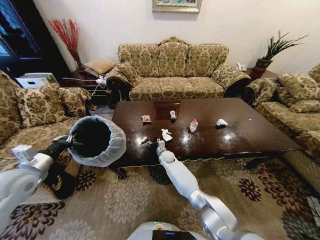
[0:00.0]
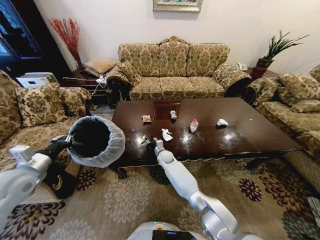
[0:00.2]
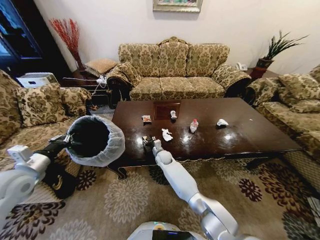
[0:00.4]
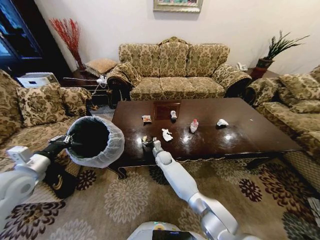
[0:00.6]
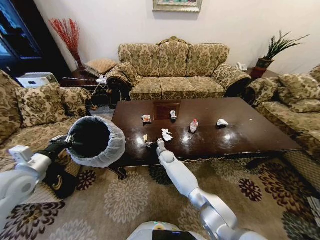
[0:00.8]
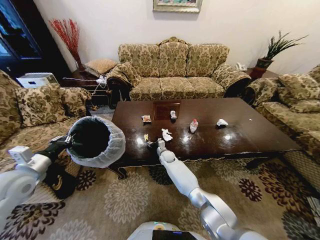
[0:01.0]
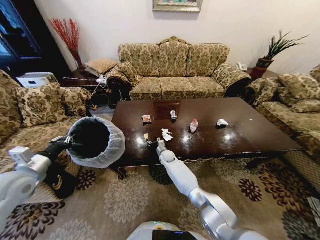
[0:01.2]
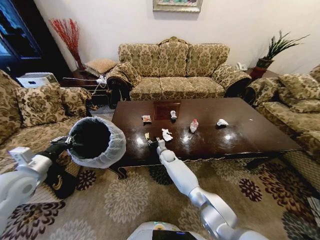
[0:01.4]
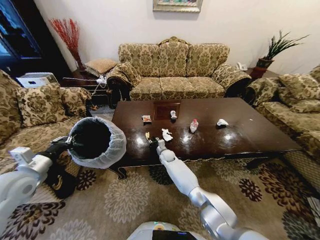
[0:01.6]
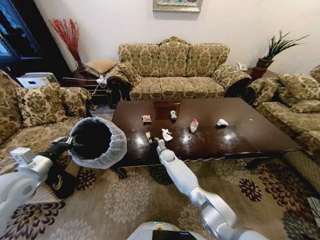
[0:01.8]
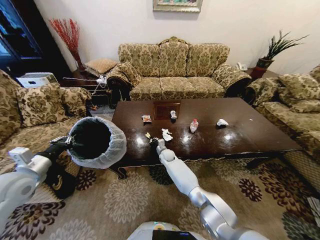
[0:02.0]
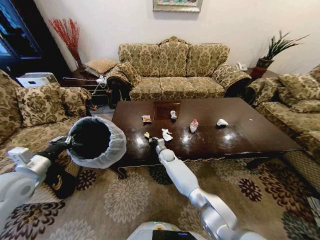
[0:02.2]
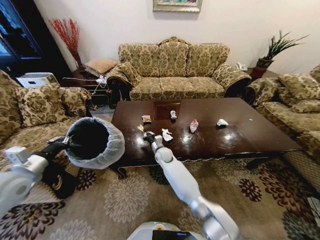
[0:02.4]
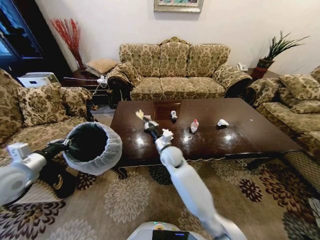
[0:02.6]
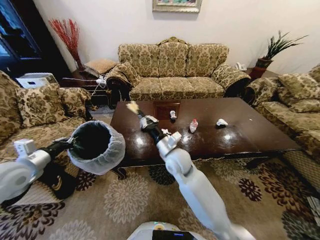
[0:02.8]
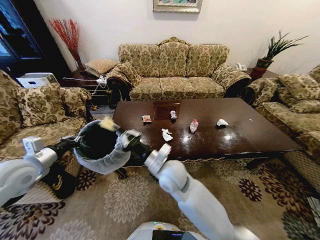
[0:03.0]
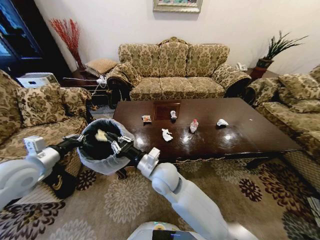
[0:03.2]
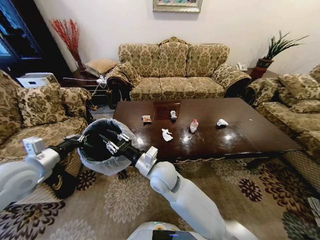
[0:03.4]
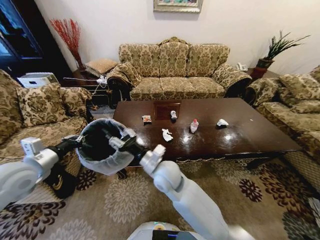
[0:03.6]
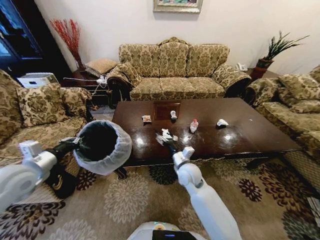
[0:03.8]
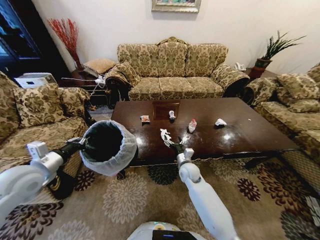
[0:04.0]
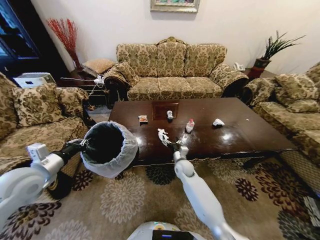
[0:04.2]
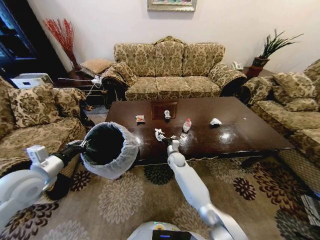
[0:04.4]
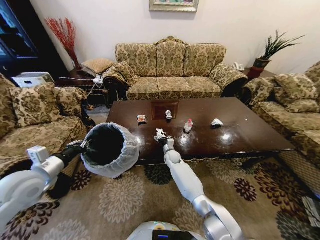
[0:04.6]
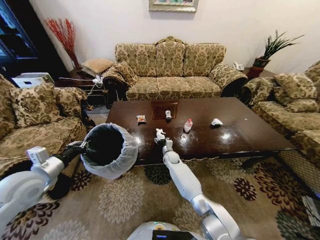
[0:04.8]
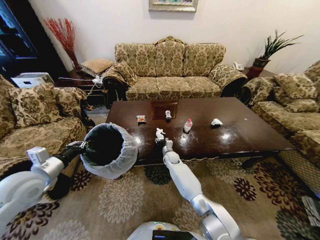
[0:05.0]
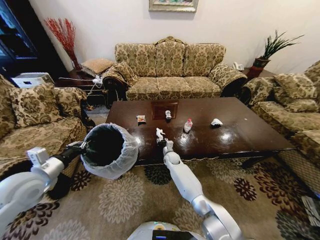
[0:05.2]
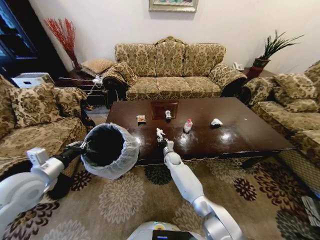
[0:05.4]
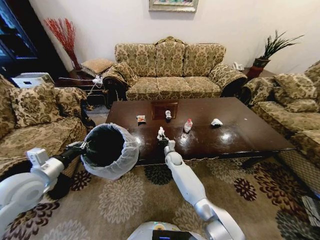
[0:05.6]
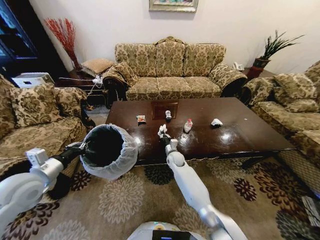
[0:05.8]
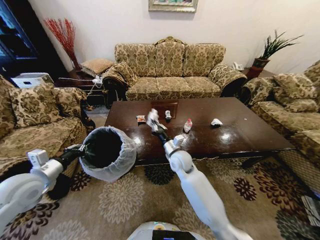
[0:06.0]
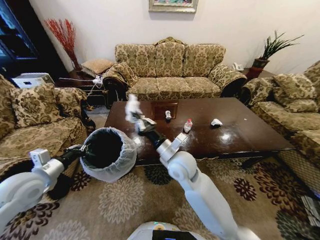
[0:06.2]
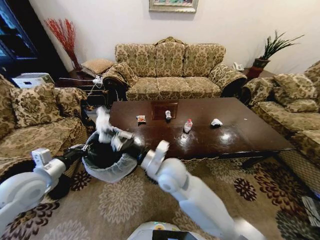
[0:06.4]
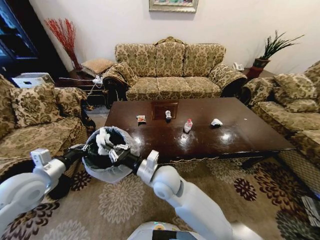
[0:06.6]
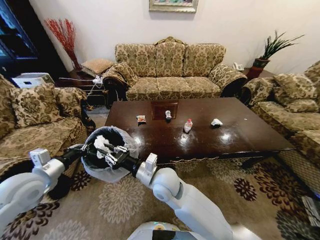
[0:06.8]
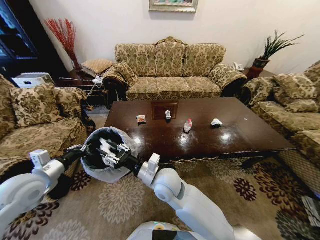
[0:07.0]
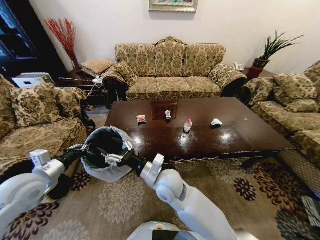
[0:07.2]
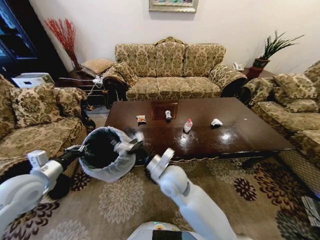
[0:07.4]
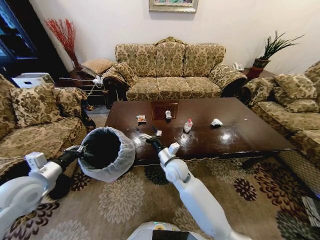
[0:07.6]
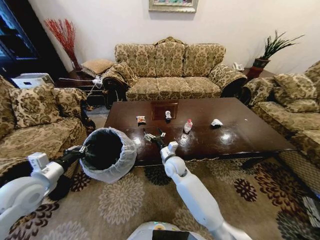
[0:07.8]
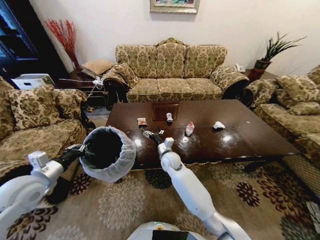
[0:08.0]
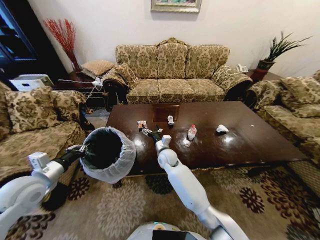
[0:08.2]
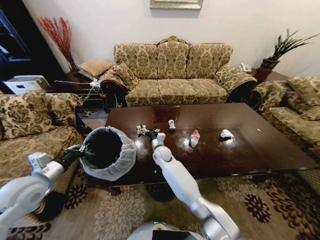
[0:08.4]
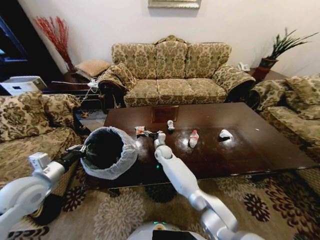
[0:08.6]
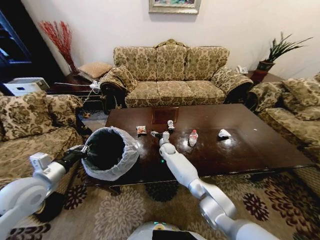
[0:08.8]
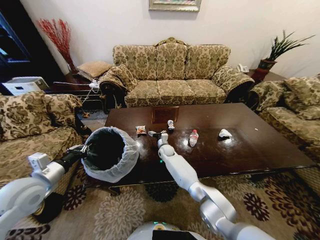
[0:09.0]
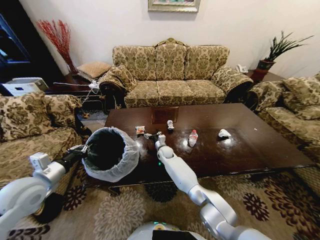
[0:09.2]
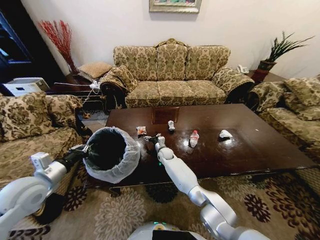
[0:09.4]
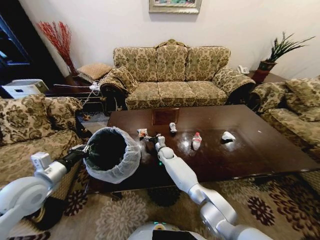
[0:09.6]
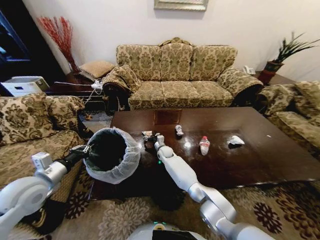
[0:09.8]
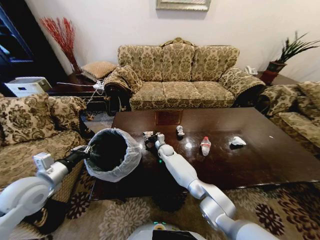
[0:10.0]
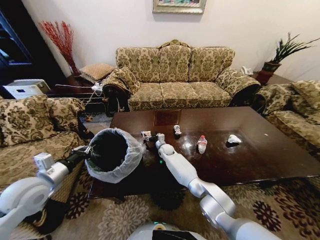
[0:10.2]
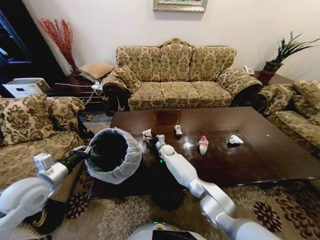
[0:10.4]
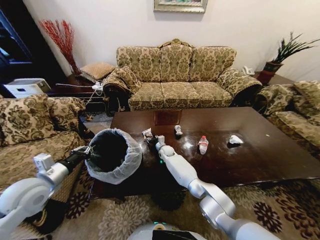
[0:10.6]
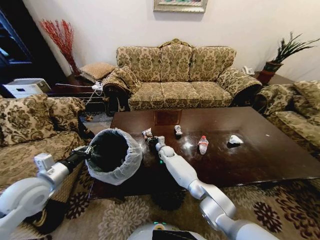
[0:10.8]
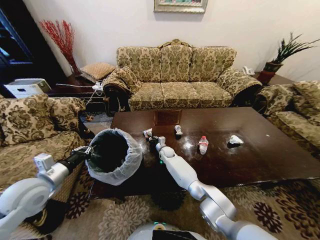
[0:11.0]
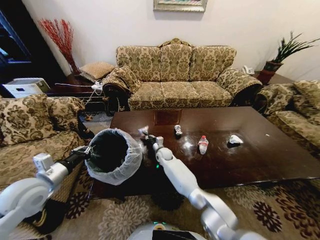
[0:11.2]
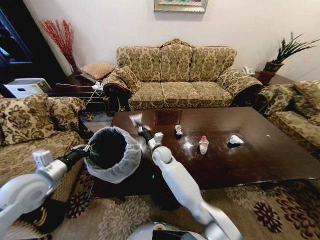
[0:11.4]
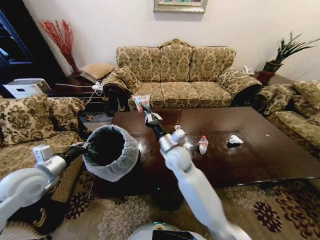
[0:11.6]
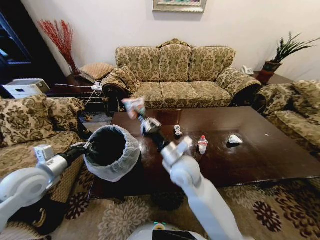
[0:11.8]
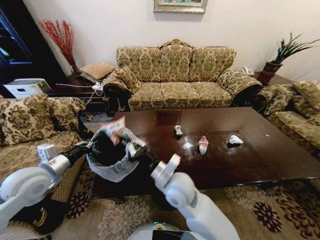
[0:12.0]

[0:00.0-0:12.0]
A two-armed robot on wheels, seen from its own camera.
Task of the whole recording: Move to the front of the table and place the trash on the table into the trash bin.
0:00.0 to 0:01.6: There are only small adjustments of the grippers.
0:01.6 to 0:03.0: The right gripper is displaced upward and backward by some 30 cm, and closes its fingers.
0:03.0 to 0:04.4: The right gripper is displaced downward and forward by about 30 cm, and opens.
0:04.4 to 0:06.0: The right gripper shifts some 15 cm upward and backward, and closes up.
0:06.0 to 0:07.6: The right gripper moves some 10 cm backward and comes back, and opens its fingers.
0:07.6 to 0:09.0: The right gripper heads forward and downward, covering about 20 cm.
0:10.4 to 0:12.0: The right gripper travels backward and upward by some 35 cm, and closes.

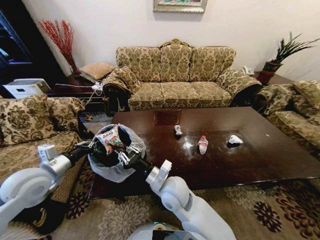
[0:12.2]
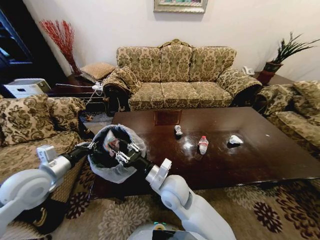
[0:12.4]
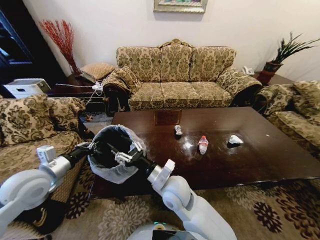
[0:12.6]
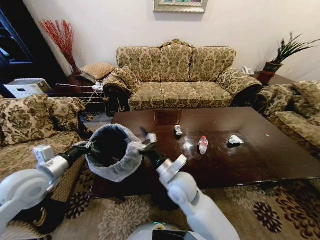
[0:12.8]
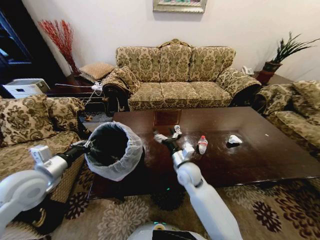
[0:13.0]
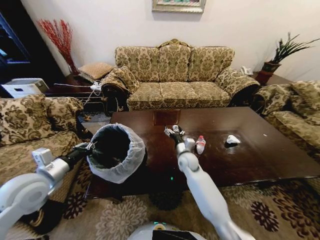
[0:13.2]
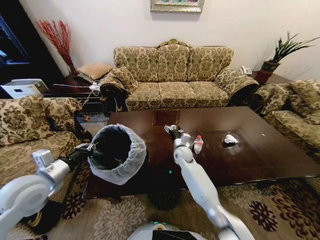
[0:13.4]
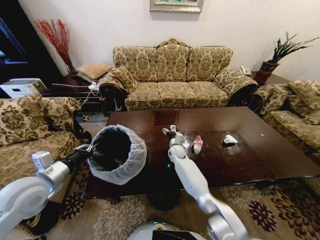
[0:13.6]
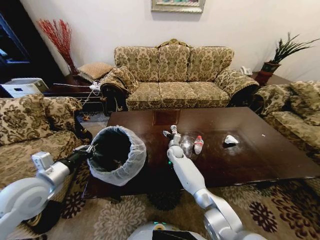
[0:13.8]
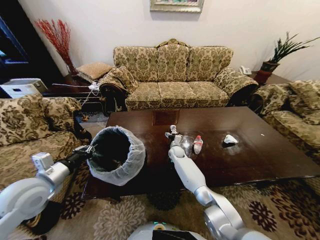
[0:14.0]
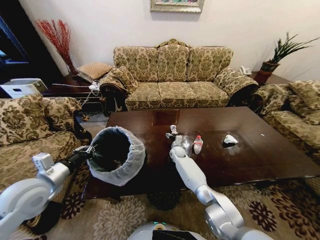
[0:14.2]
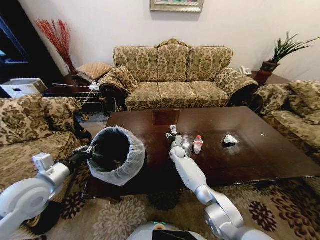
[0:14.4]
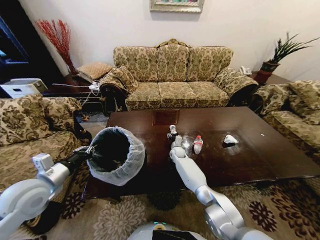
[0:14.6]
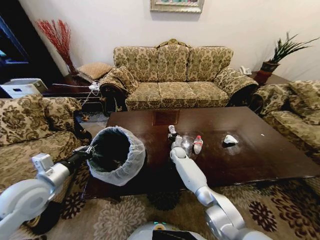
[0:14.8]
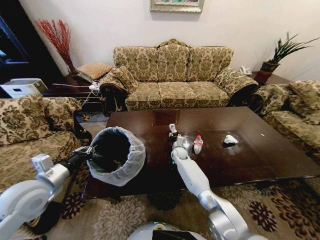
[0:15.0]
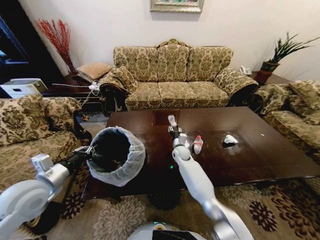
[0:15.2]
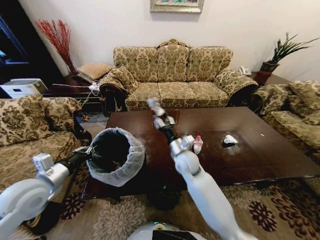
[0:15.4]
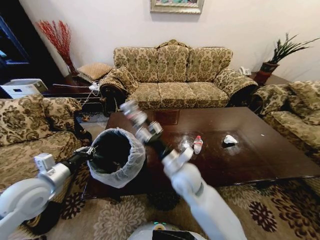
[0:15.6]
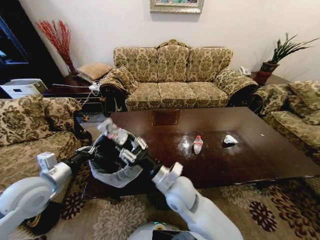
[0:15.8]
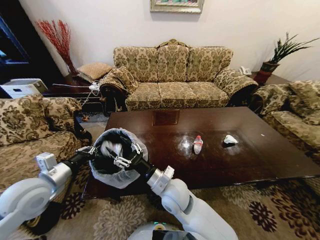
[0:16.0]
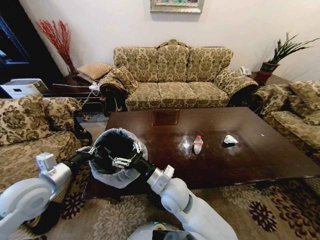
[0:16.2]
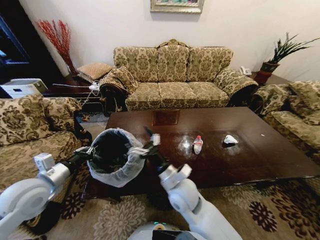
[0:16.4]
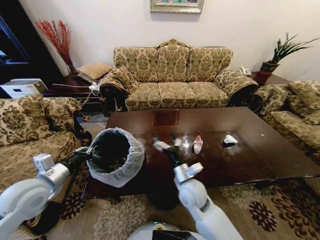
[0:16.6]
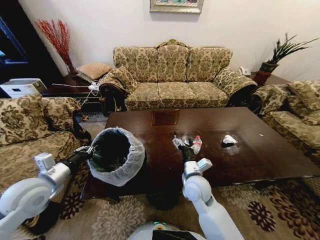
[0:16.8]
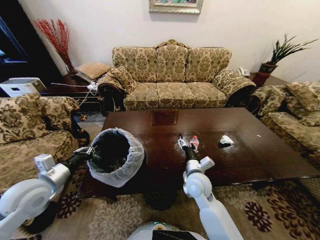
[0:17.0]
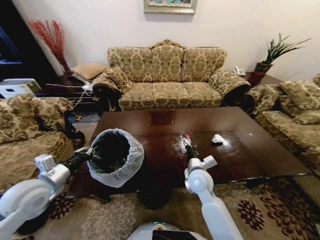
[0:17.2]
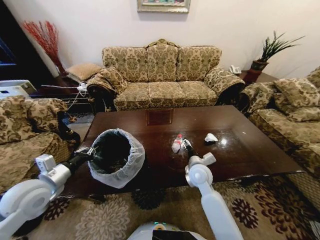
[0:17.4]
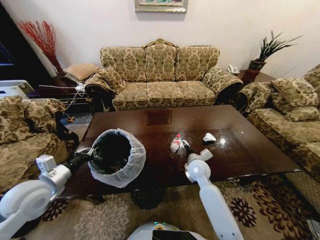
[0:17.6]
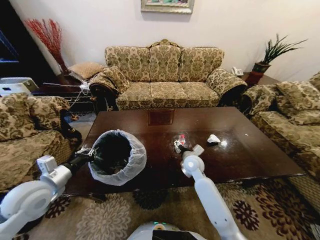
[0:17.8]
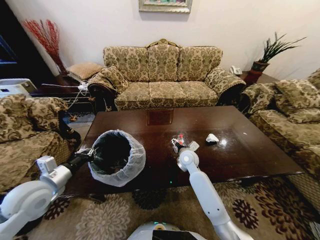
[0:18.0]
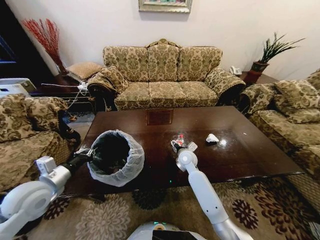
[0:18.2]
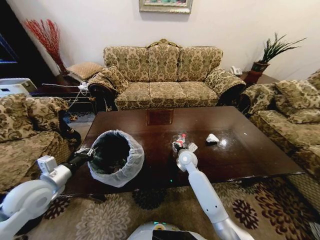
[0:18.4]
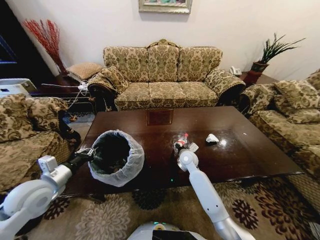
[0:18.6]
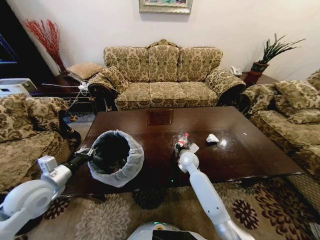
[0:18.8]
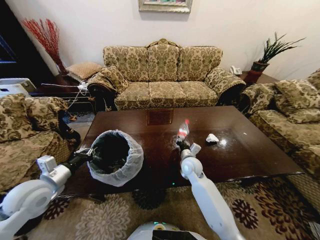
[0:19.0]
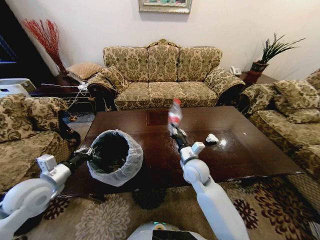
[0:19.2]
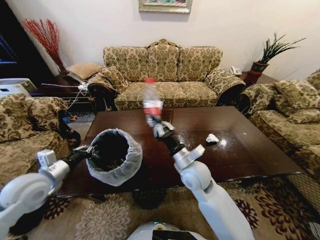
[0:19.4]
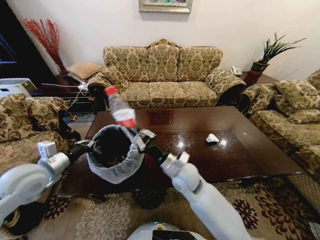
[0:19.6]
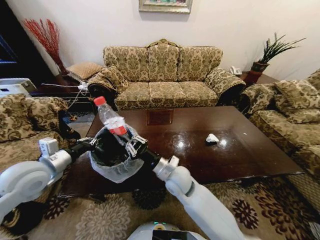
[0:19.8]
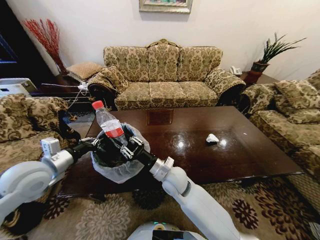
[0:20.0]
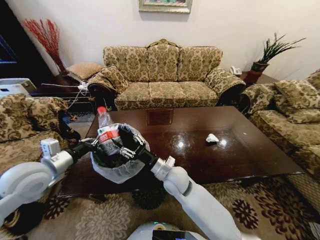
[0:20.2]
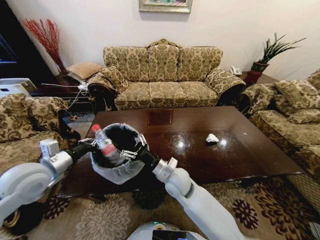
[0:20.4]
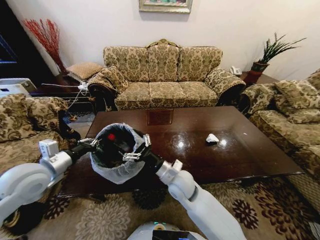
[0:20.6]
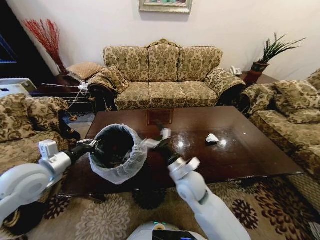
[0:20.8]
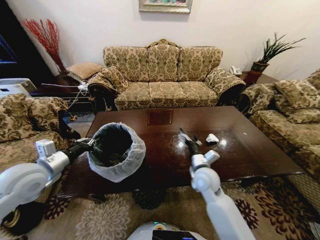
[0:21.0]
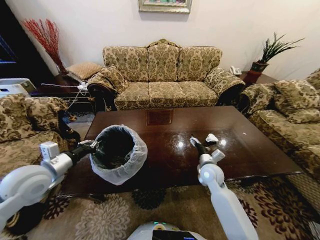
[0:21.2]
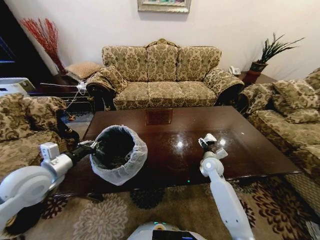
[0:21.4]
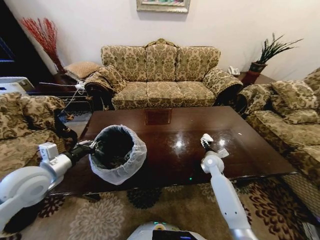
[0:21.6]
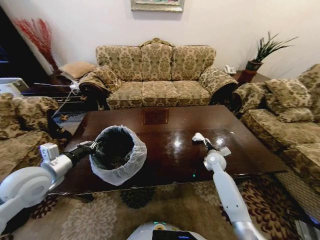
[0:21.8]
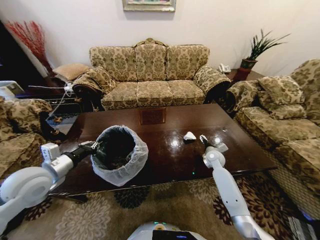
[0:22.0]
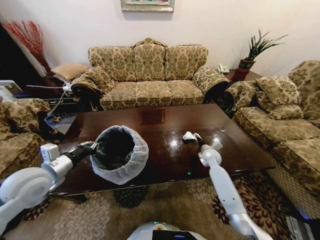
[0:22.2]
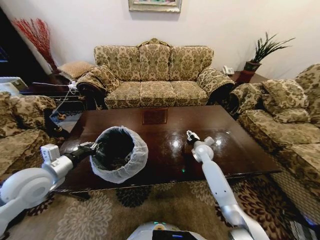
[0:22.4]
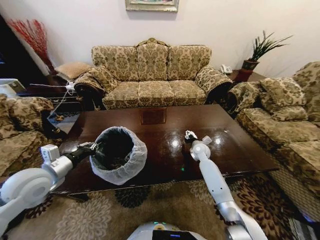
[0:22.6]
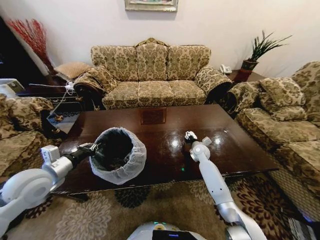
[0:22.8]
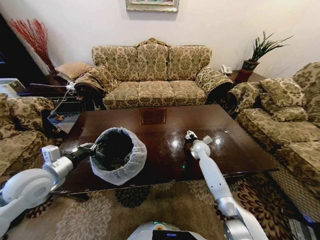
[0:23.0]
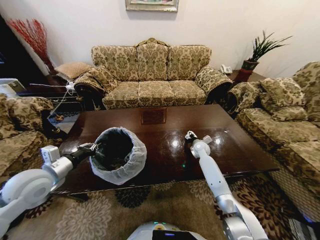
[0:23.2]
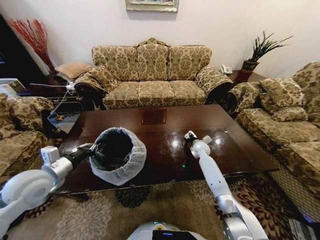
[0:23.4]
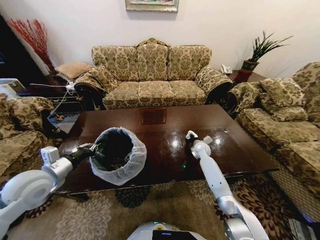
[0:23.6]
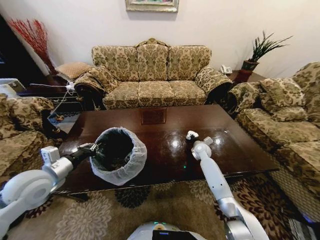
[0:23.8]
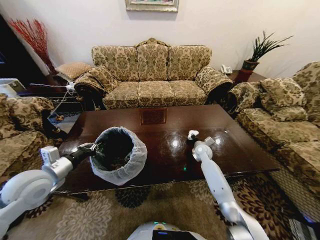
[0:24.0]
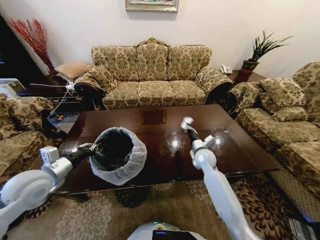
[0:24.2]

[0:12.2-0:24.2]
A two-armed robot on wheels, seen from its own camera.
Task of the whole recording: Move to the front of the table and place the trash on the table into the trash bin.
0:12.2 to 0:13.8: The right gripper shifts roughly 30 cm forward and downward, and opens its fingers.
0:13.8 to 0:15.2: The right gripper changes place by some 5 cm, and closes its fingers.
0:15.2 to 0:16.6: The right gripper heads backward, covering roughly 25 cm, and opens.
0:16.6 to 0:18.2: The right gripper travels forward by about 15 cm.
0:18.2 to 0:19.8: The right gripper moves backward, to the left and upward, some 15 cm, and closes its fingers. The left gripper heads upward, covering about 5 cm.
0:19.8 to 0:21.2: The right gripper heads to the right, covering some 15 cm, and opens up.
0:21.2 to 0:22.6: The right gripper is displaced forward by roughly 15 cm.
0:22.6 to 0:24.2: The right gripper is displaced backward by some 5 cm, and closes its fingers.
